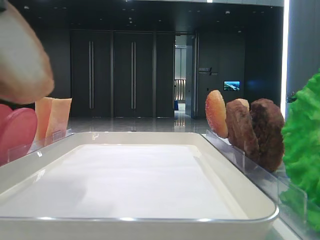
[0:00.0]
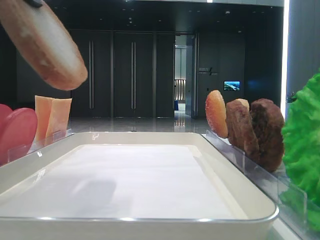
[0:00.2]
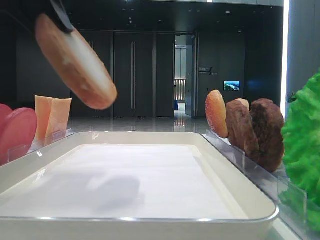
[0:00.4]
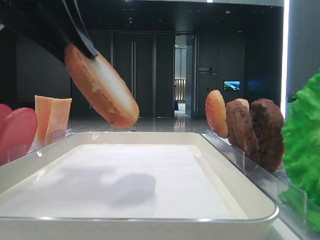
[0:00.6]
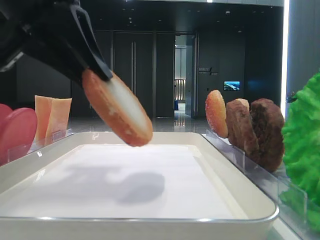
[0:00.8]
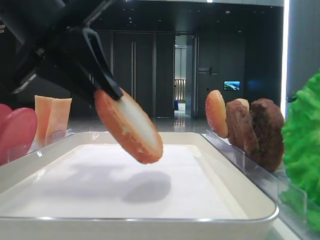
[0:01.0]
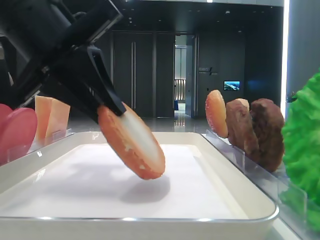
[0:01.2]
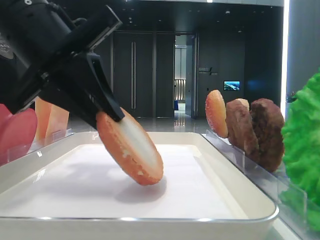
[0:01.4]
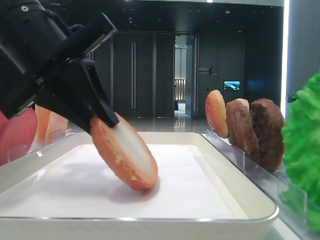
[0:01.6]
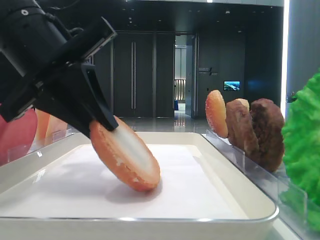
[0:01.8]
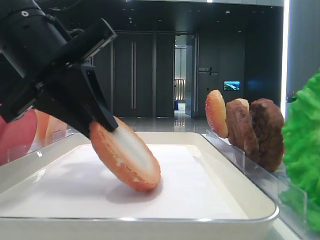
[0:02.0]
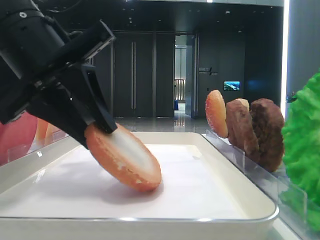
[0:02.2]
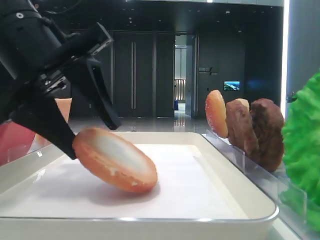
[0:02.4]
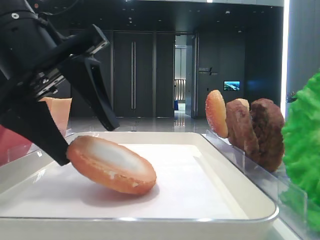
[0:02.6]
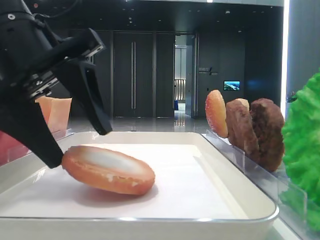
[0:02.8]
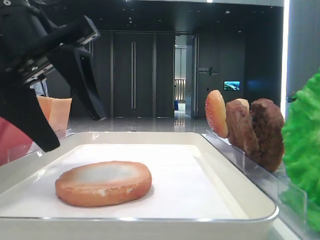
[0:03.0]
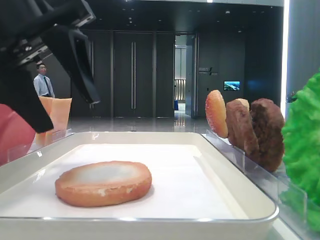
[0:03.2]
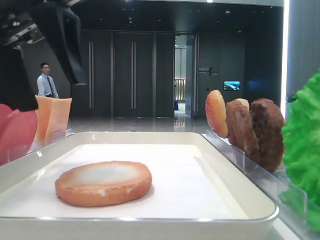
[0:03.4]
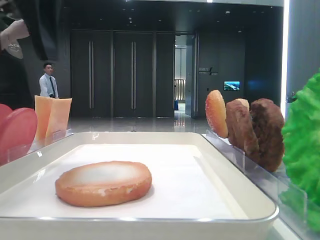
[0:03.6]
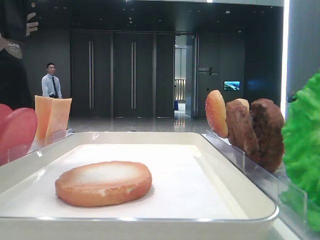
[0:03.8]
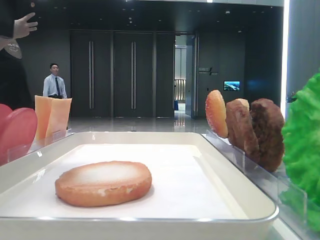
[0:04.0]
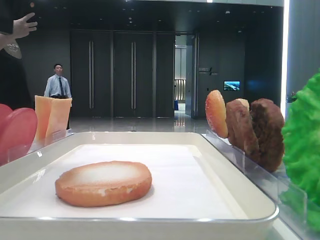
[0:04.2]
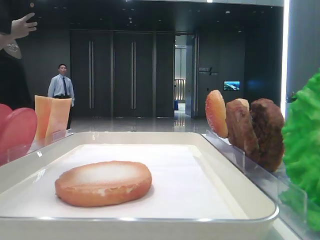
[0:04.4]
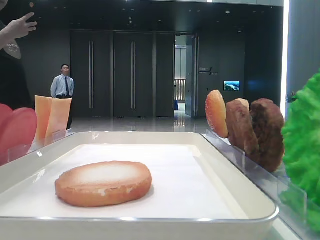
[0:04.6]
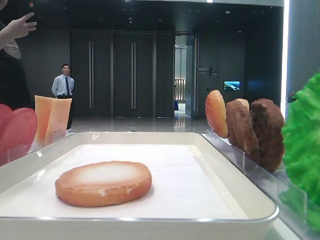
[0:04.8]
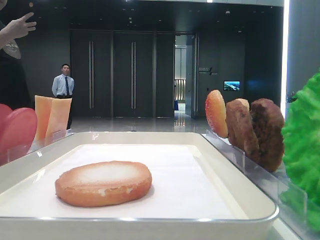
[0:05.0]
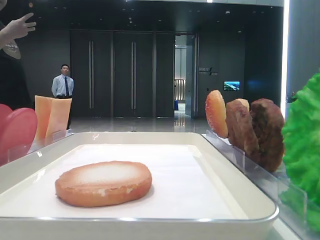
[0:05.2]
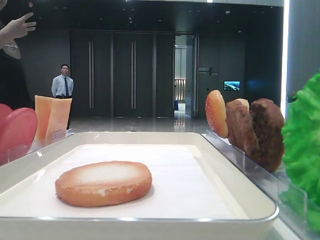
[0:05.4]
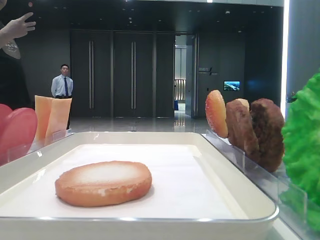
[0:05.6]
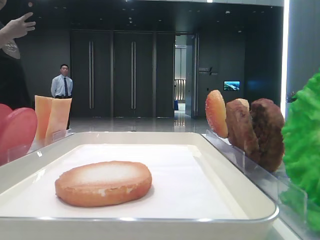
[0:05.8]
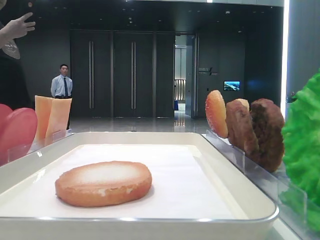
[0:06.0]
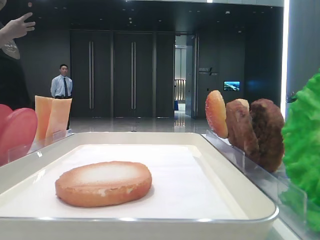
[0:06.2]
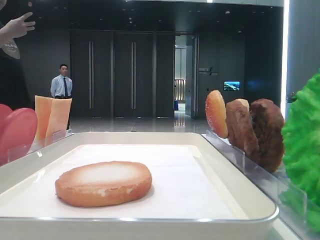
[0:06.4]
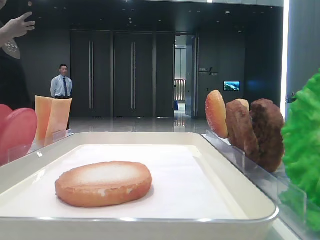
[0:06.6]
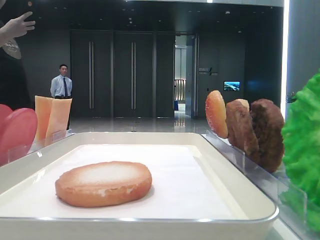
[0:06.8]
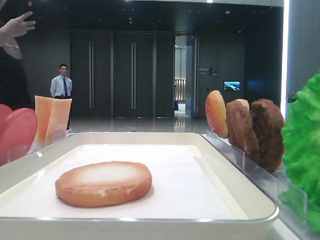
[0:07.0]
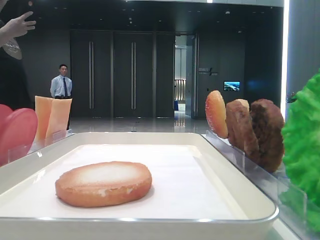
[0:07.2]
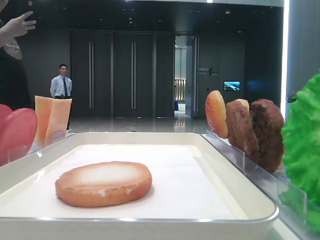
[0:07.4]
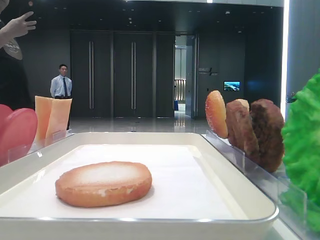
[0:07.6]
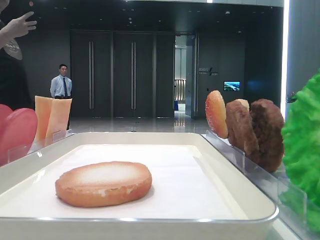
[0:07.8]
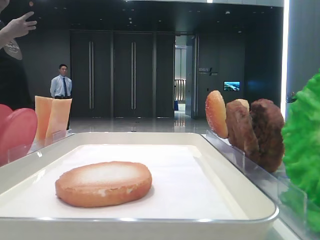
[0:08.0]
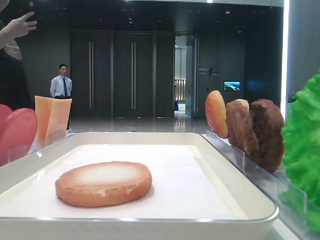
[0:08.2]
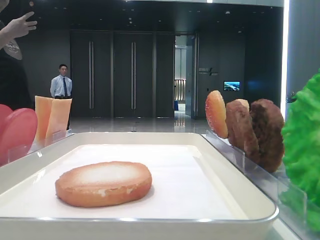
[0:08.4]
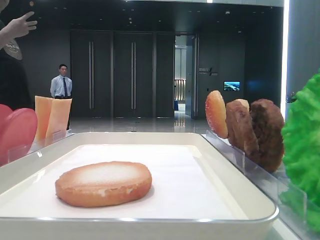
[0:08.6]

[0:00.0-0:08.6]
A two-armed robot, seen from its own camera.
Step, 0:00.0 to 0:02.8: Place the bottom bread slice on the tray with the left hand.
0:00.0 to 0:01.4: The left gripper is displaced downward, forward and to the right by about 15 cm.
0:01.4 to 0:02.8: The left gripper opens up.
0:02.8 to 0:04.4: The left gripper heads upward, covering some 15 cm.
0:04.4 to 0:05.8: The left gripper goes approximately 10 cm to the left.

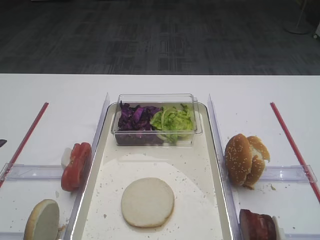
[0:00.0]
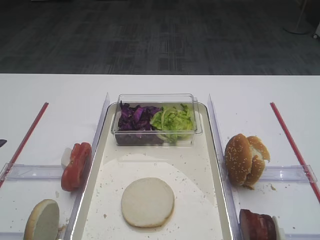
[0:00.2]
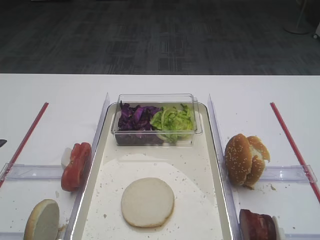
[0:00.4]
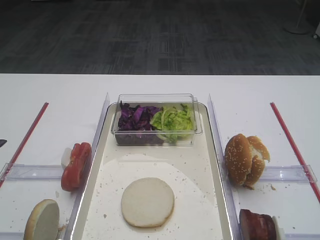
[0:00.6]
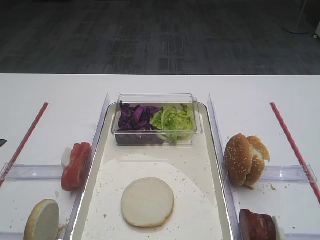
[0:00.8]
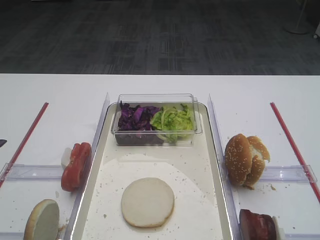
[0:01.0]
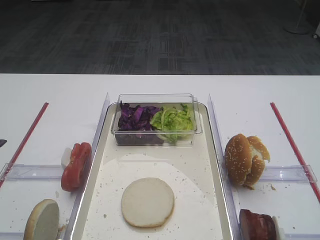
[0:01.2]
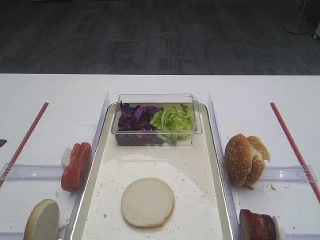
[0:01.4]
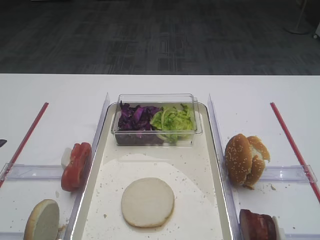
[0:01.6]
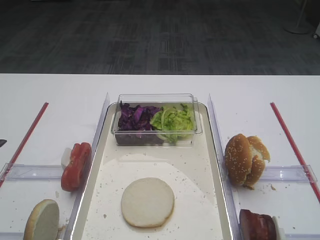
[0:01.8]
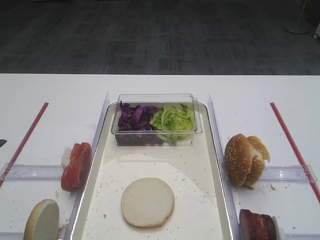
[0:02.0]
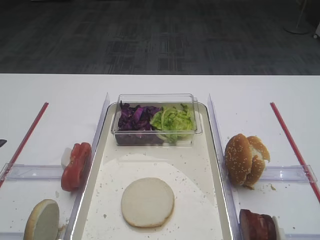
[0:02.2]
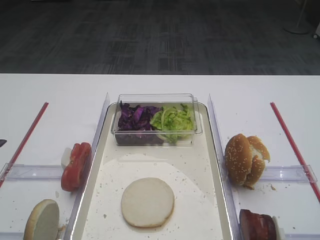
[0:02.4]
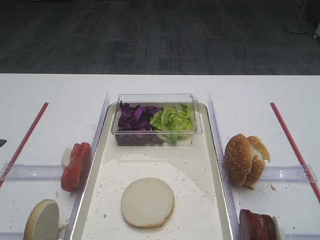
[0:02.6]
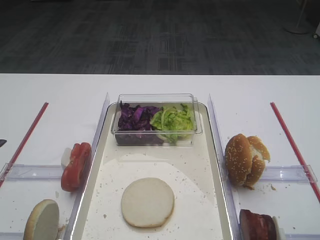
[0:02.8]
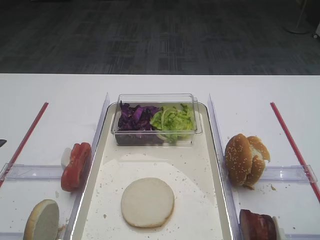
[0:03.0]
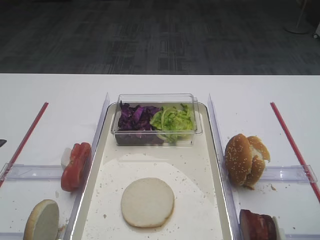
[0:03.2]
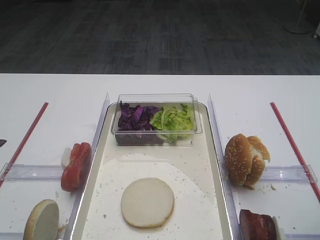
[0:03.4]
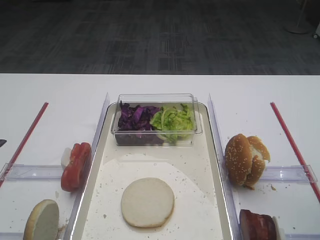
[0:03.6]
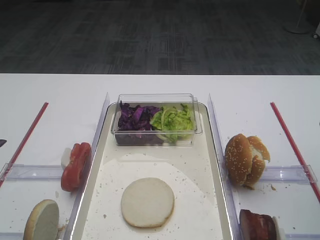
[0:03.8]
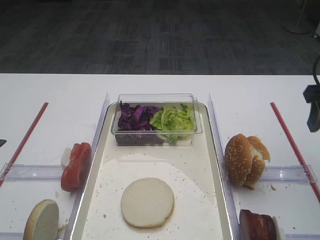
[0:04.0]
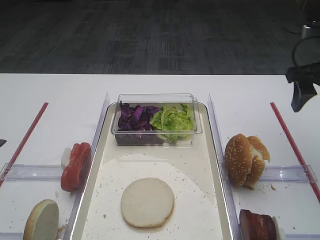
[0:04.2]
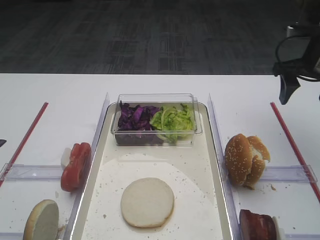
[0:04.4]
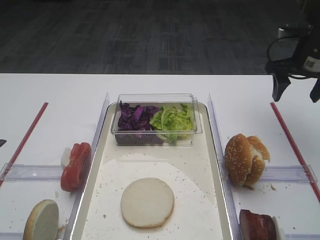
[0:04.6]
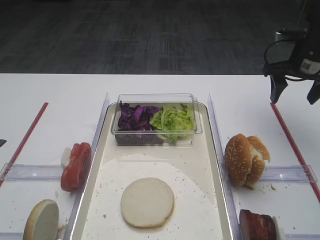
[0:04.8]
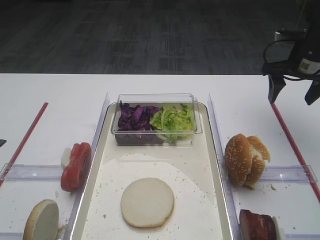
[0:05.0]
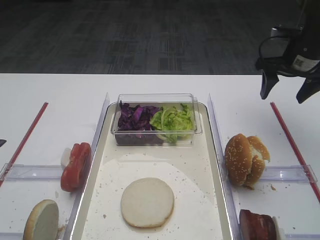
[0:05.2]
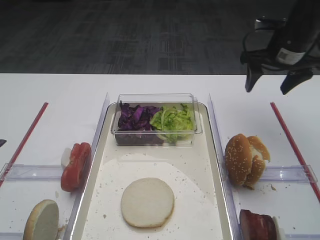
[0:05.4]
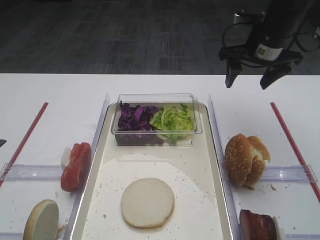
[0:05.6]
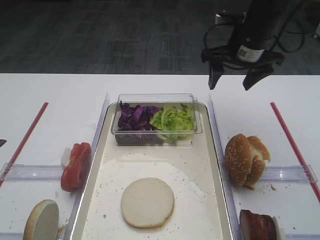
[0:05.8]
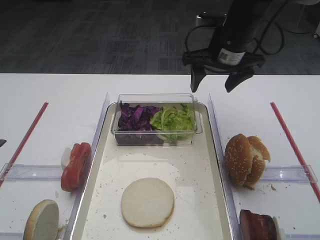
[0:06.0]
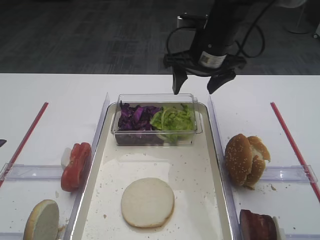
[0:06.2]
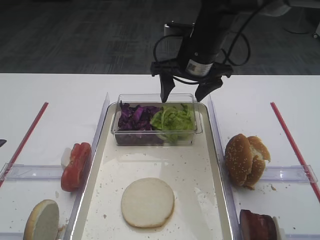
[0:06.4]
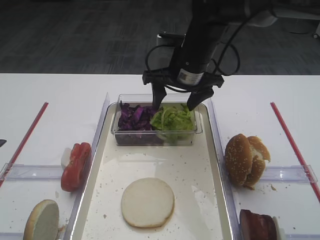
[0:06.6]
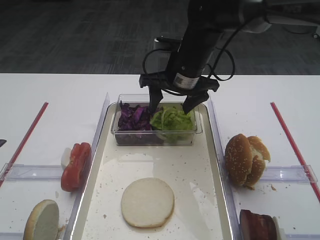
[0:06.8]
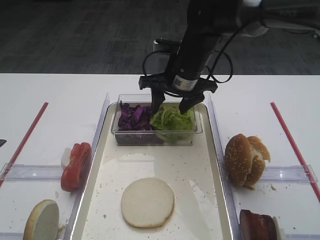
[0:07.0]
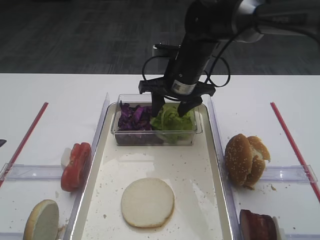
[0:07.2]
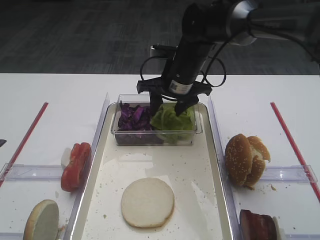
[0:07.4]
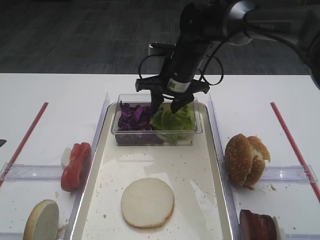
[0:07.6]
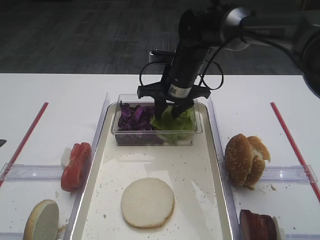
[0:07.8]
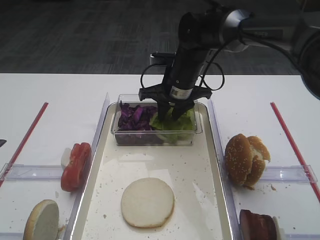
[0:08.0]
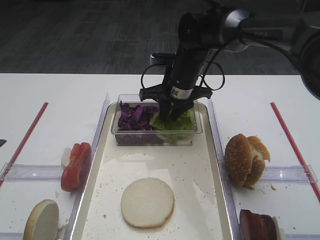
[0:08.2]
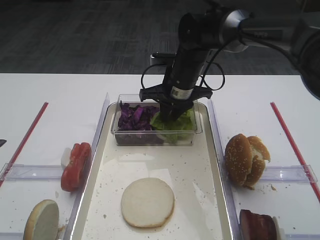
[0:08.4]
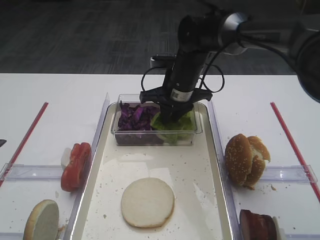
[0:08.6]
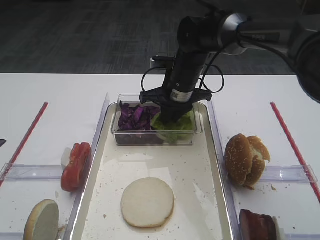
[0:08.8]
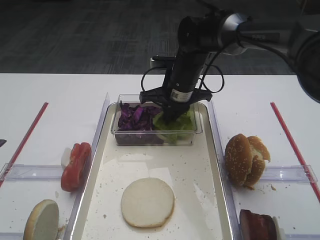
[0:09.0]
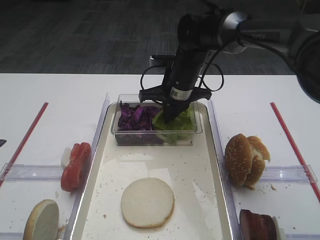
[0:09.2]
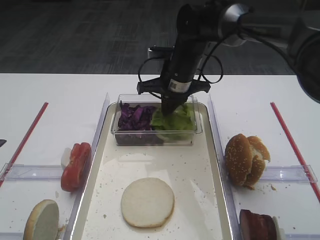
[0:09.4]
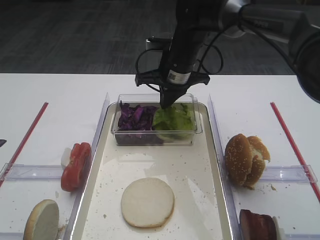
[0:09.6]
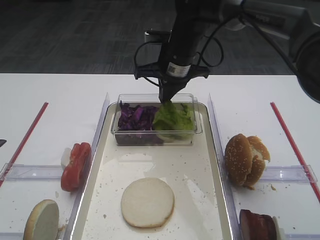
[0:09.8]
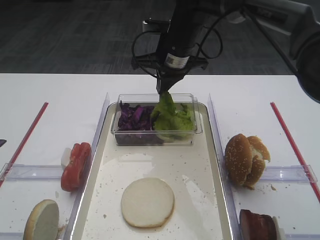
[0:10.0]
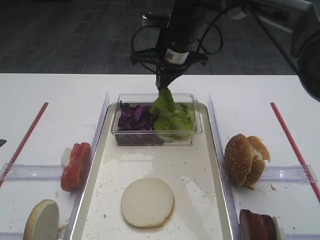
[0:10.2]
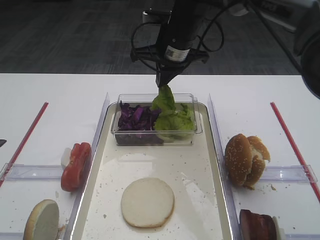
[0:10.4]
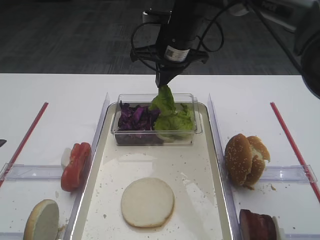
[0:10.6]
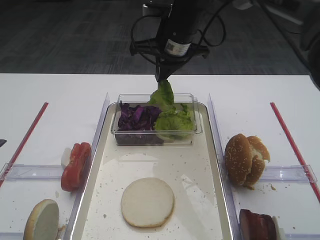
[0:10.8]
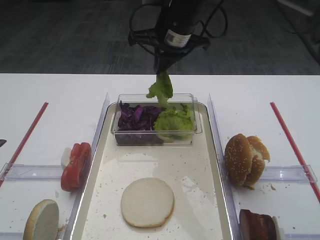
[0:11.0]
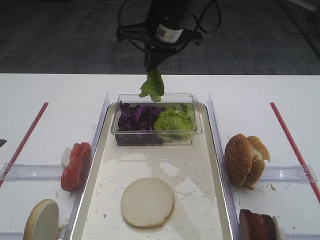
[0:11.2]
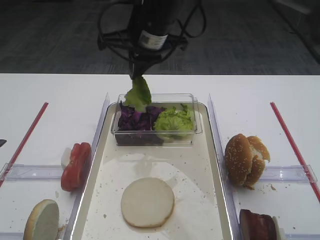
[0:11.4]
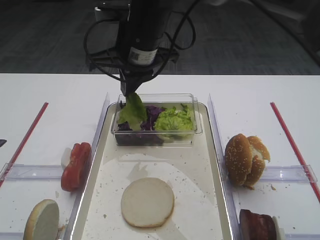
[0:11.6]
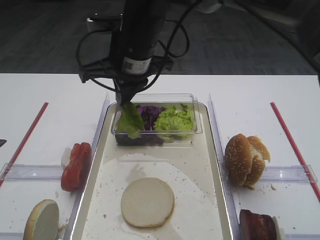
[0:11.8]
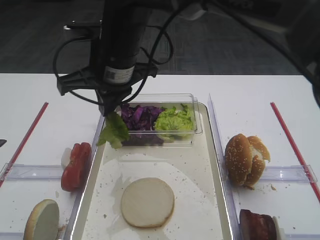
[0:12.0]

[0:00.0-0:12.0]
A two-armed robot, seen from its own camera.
Step, 0:00.0 to 0:10.2: Pick up the lettuce leaf with the right gripper.
0:03.0 to 0:04.4: The right gripper heads forward, covering some 25 cm.
0:04.4 to 0:06.0: The right gripper moves to the left, some 15 cm.
0:06.0 to 0:07.6: The right gripper goes some 10 cm to the left and downward.
0:07.6 to 0:09.0: The right gripper closes up.
0:09.0 to 0:10.4: The right gripper goes approximately 10 cm upward.
0:10.4 to 0:12.0: The right gripper goes roughly 15 cm backward and to the left.

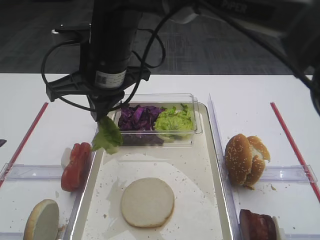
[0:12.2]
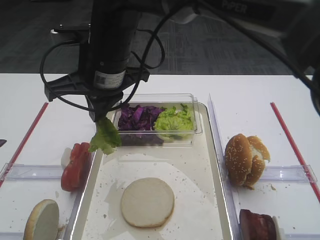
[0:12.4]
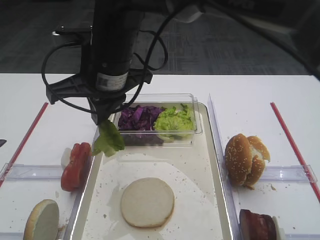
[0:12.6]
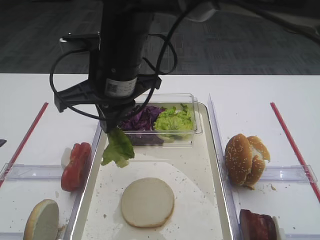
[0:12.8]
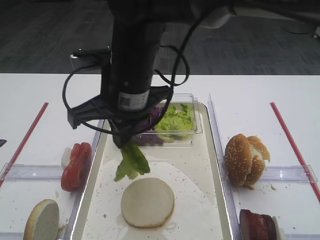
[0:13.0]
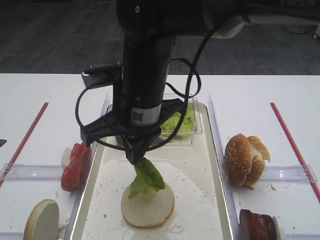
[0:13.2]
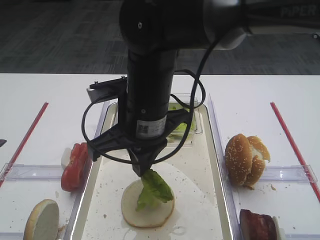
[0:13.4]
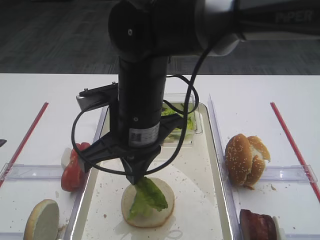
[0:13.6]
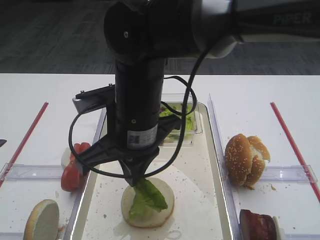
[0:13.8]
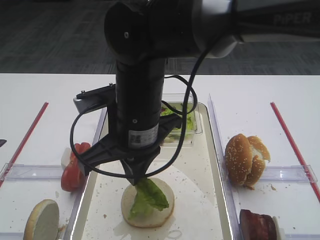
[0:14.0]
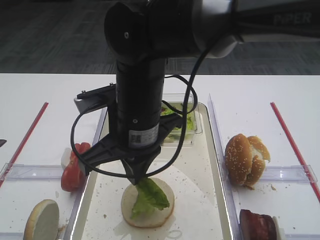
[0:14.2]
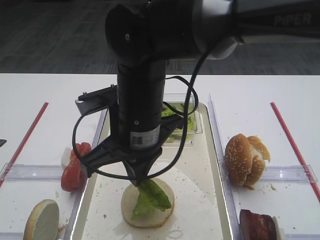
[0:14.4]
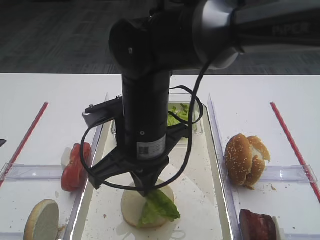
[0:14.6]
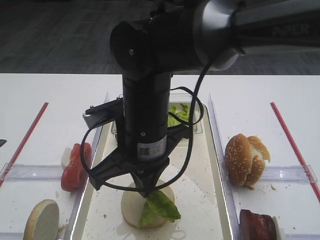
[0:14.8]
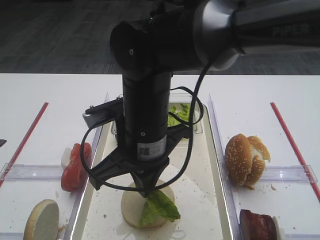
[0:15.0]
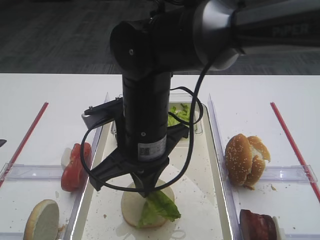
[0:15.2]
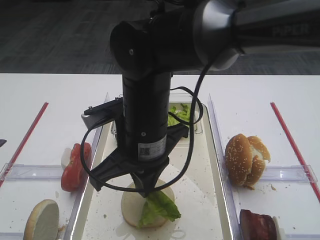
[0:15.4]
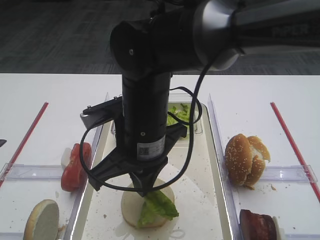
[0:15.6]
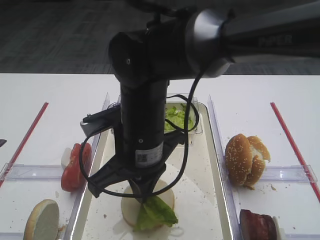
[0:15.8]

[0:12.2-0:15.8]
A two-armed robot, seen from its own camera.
0:12.2 to 0:14.0: The right gripper goes some 5 cm backward.
0:14.0 to 0:15.8: The grippers move only a little.
